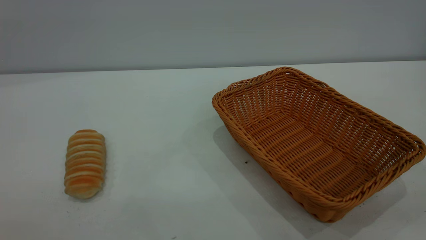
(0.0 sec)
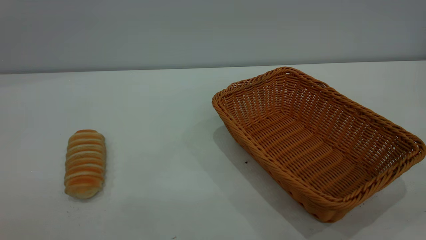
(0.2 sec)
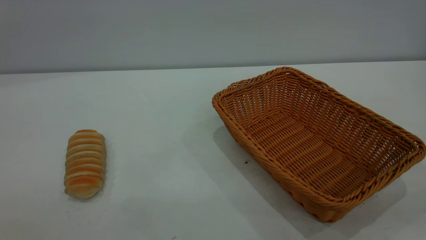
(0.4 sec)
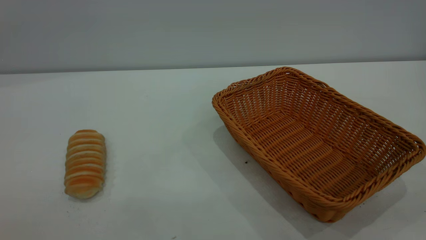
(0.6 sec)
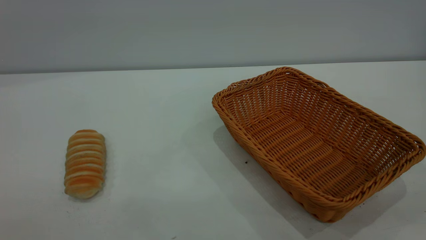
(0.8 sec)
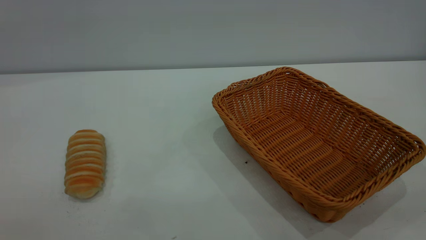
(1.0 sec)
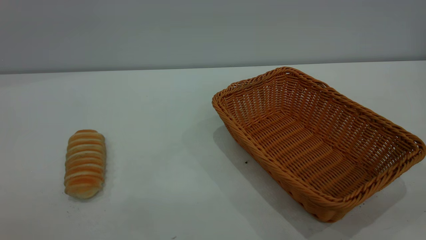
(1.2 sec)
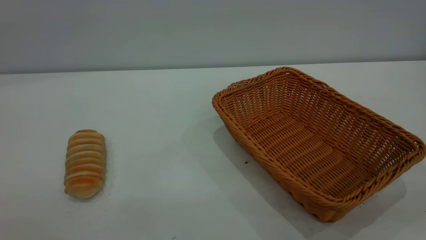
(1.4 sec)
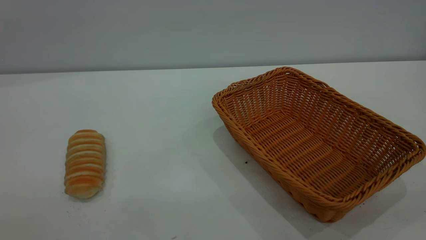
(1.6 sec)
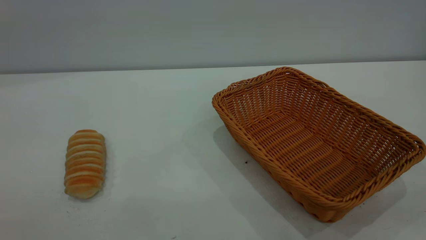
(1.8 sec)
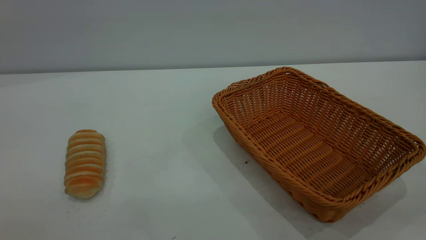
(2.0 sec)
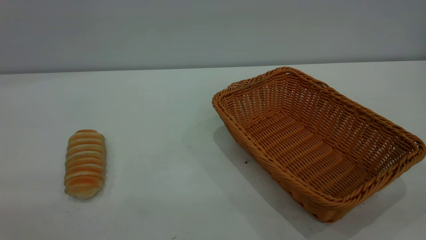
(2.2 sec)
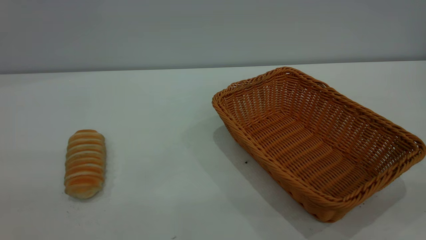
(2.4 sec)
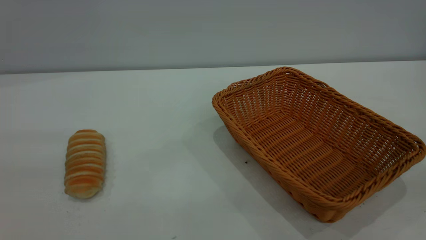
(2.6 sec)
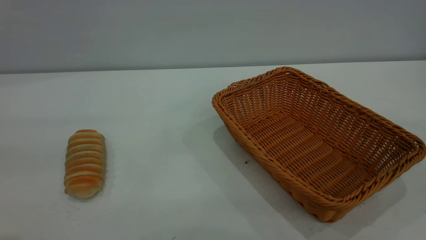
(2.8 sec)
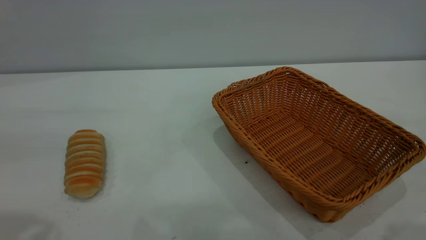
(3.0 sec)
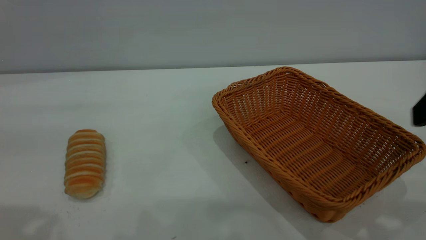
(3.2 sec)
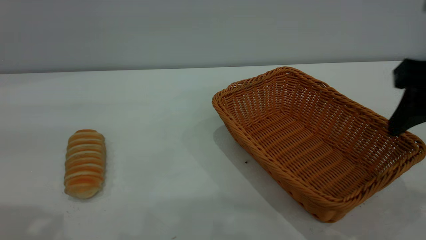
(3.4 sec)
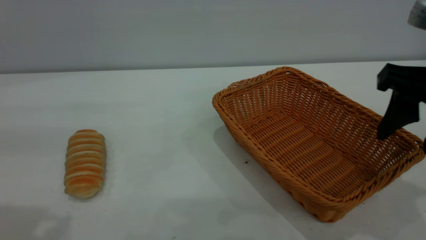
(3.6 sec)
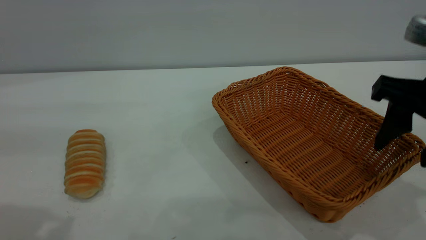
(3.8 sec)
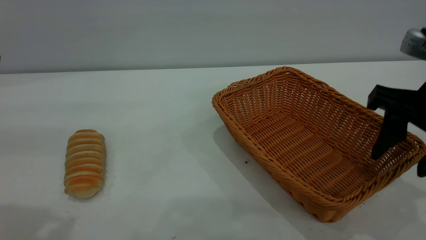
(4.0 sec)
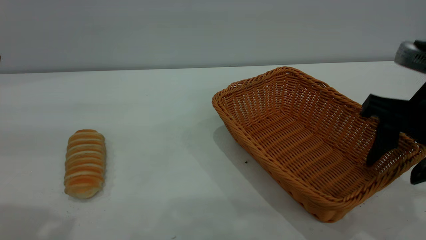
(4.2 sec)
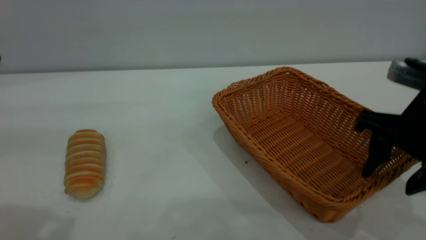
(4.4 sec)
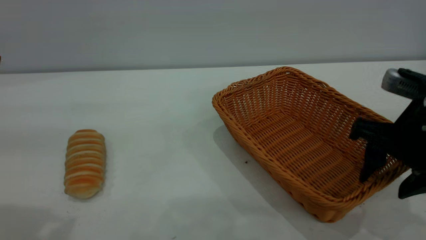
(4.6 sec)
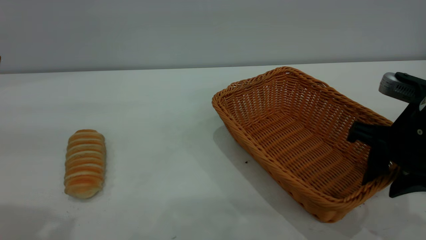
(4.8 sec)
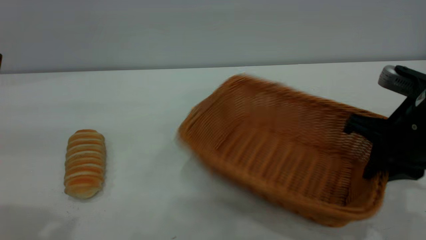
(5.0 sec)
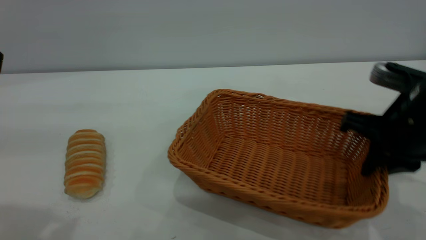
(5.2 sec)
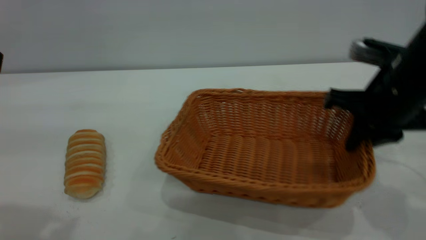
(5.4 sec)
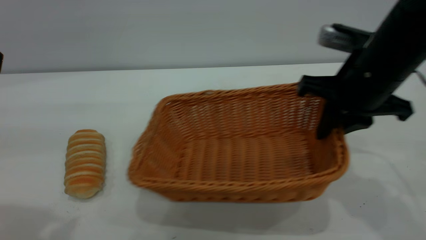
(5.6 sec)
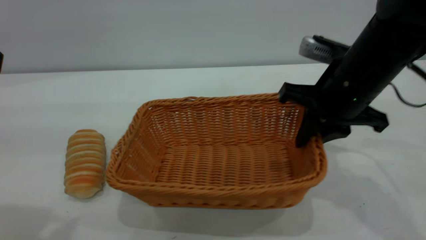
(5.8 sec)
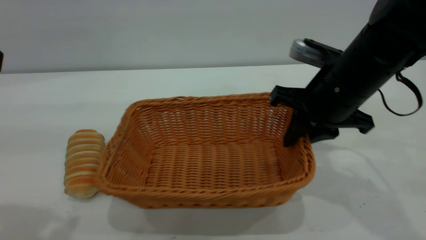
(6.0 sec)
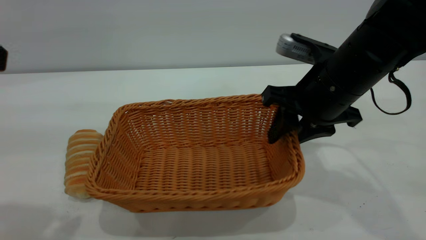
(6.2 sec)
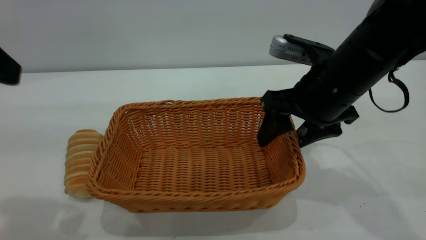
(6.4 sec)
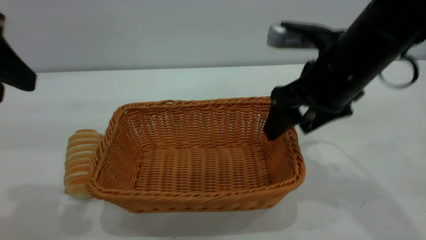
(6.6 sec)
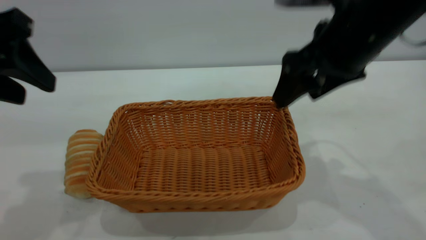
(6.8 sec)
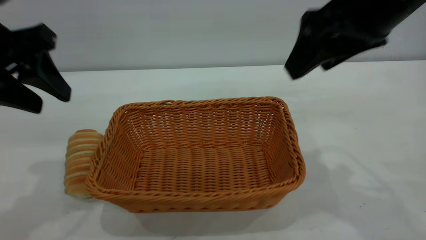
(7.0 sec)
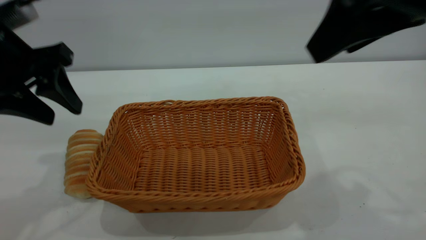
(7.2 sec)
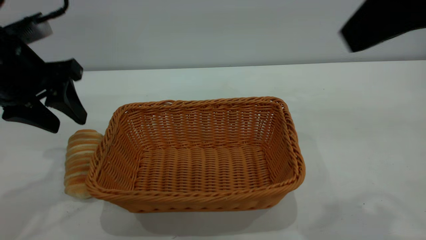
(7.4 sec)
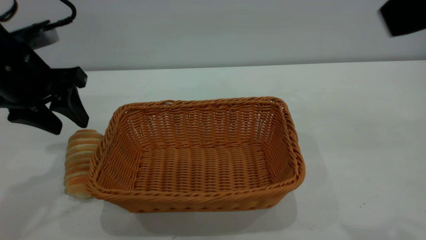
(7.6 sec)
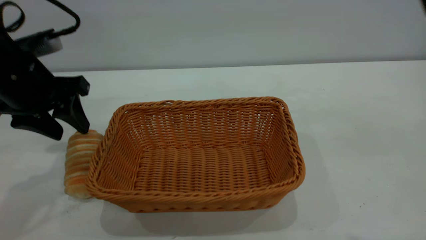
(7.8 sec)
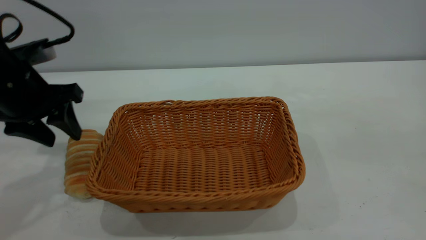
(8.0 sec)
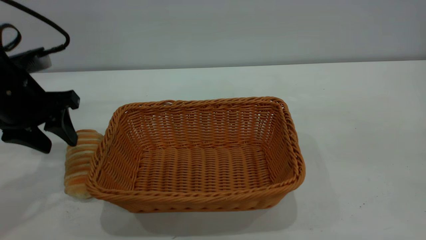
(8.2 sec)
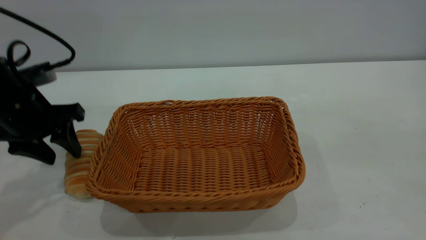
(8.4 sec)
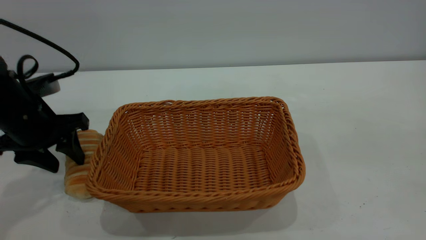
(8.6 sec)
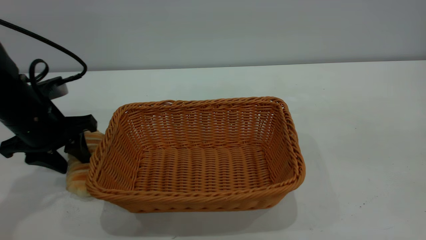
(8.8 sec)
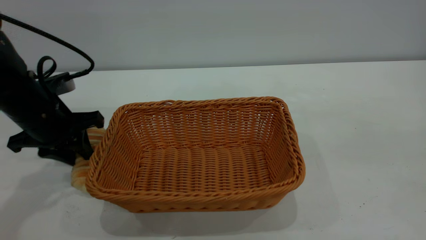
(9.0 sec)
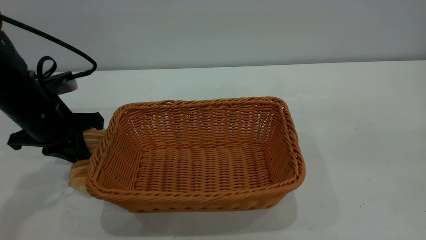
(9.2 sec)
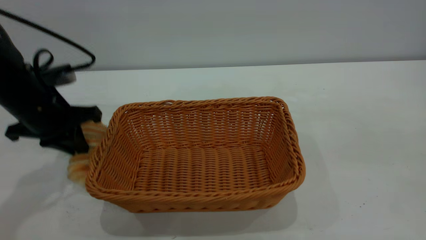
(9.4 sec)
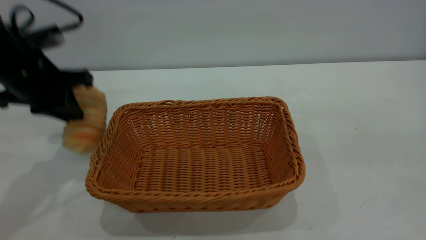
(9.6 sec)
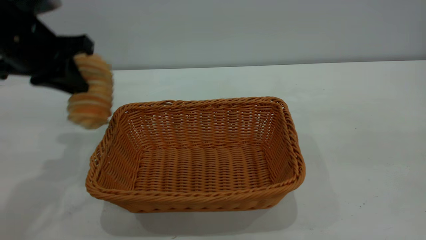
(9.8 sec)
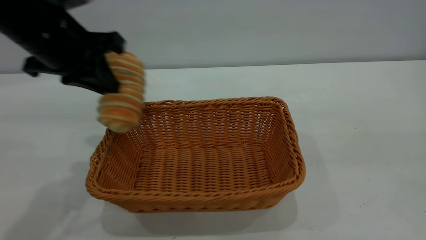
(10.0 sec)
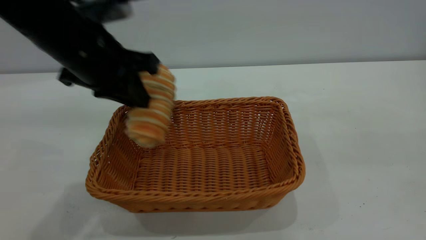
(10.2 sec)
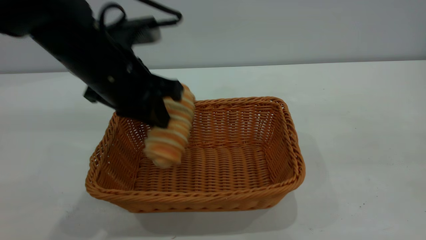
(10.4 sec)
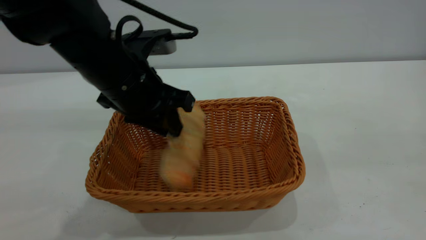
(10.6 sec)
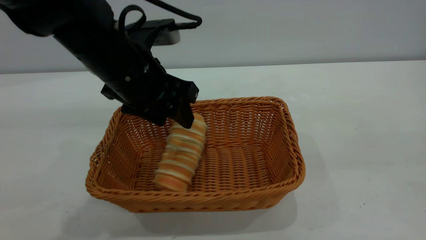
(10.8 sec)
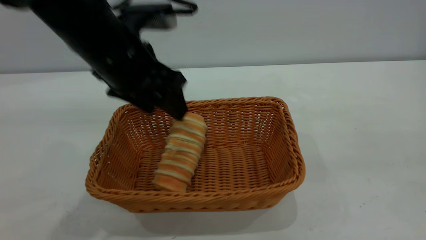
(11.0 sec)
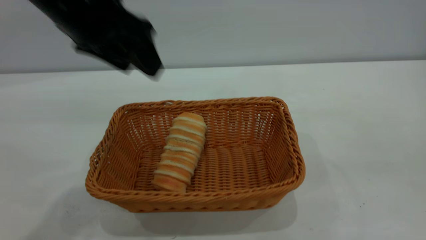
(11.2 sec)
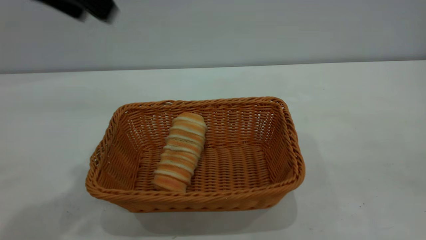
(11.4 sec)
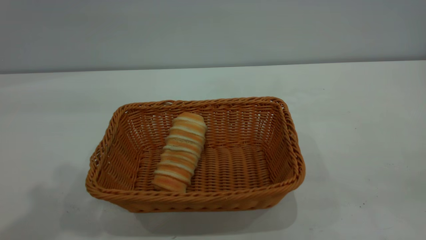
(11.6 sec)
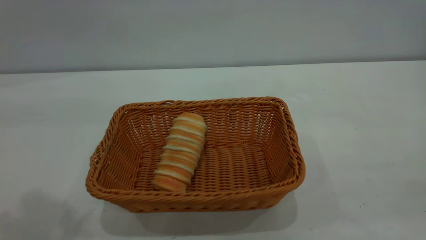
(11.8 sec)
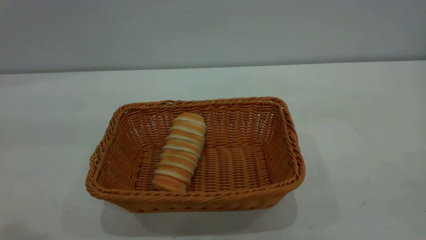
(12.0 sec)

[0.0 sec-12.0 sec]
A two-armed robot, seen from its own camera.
Task of the whole recording: One hand grasps the yellow basket and places it in the middle of the table, while the other hand picks up the long bread and puts it into the yellow basket.
Step, 0.0 sec to 6.8 sec: Move the basket to the center of view.
Step, 9.8 sec to 11.0 sec: place the bread into the basket.
0.0 sec to 1.6 sec: The two grippers keep their place.
3.0 sec to 4.4 sec: The right gripper moves downward and forward, some 15 cm.
4.4 sec to 6.0 sec: The right gripper shifts approximately 10 cm forward and to the left, and closes up.
6.0 sec to 7.6 sec: The right gripper goes about 25 cm upward and backward, and opens. Meanwhile the left gripper goes roughly 20 cm forward and downward.
7.6 sec to 9.0 sec: The left gripper moves downward, roughly 10 cm, and closes up.
9.0 sec to 10.4 sec: The left gripper goes about 15 cm to the right and upward.
10.4 sec to 12.0 sec: The right gripper heads backward and to the right, covering approximately 15 cm; the left gripper travels upward, backward and to the left by some 30 cm, and opens up.

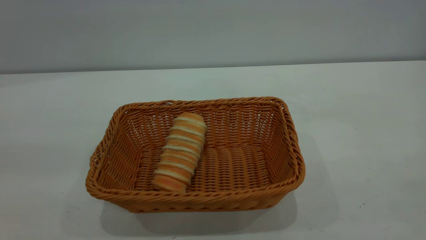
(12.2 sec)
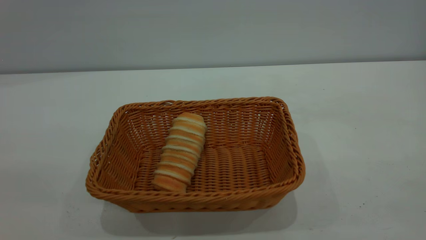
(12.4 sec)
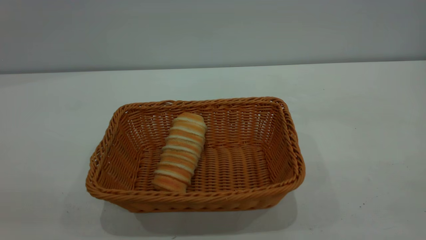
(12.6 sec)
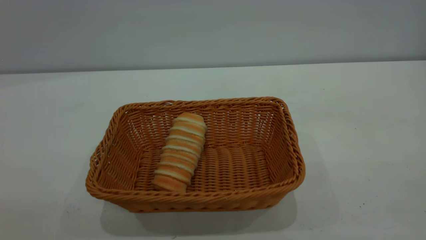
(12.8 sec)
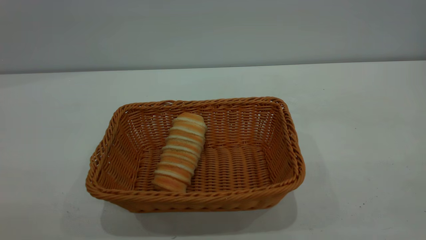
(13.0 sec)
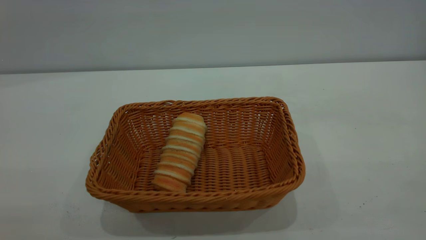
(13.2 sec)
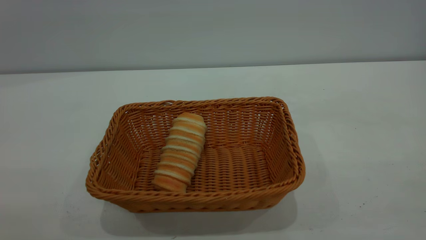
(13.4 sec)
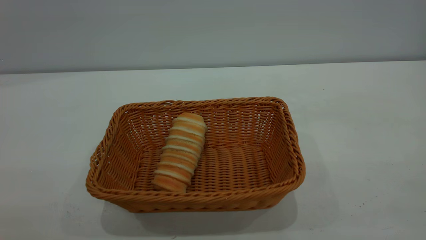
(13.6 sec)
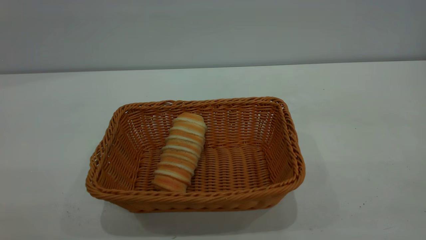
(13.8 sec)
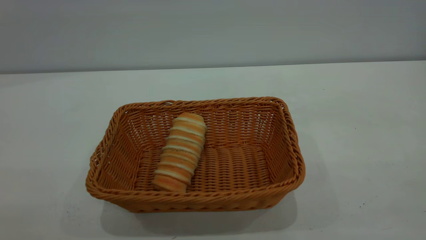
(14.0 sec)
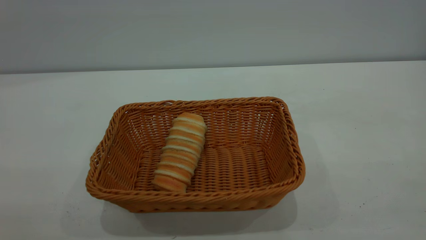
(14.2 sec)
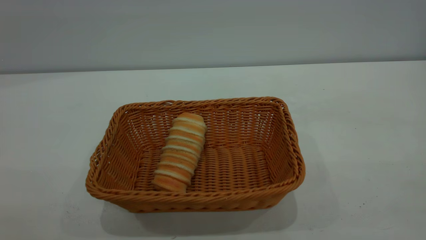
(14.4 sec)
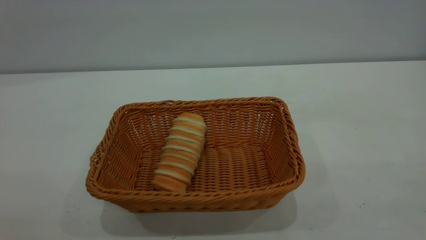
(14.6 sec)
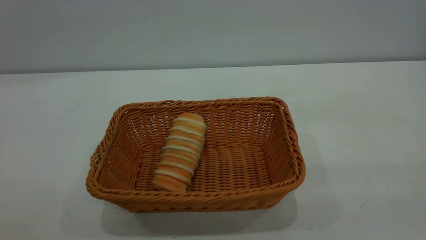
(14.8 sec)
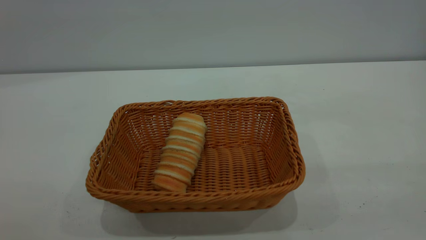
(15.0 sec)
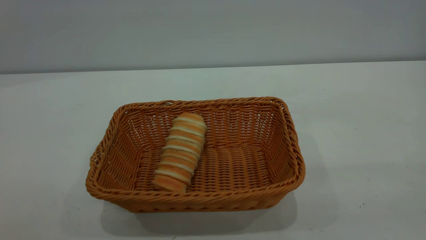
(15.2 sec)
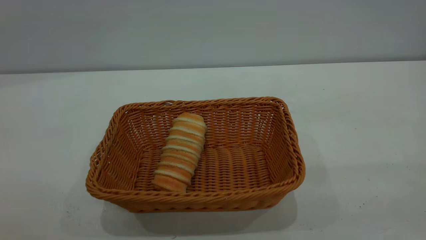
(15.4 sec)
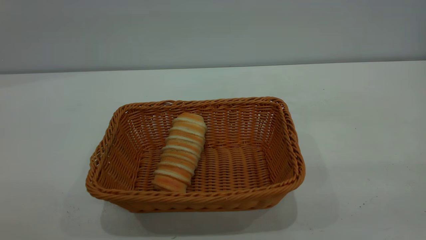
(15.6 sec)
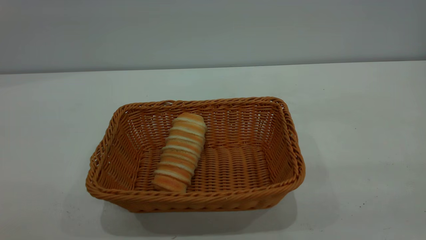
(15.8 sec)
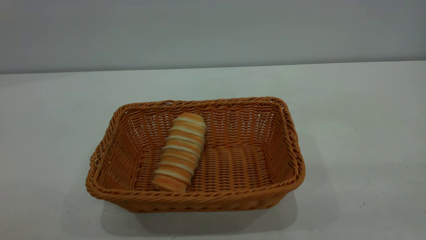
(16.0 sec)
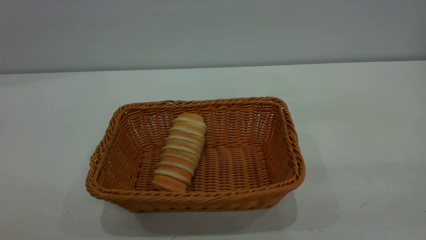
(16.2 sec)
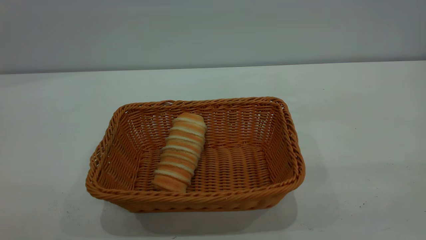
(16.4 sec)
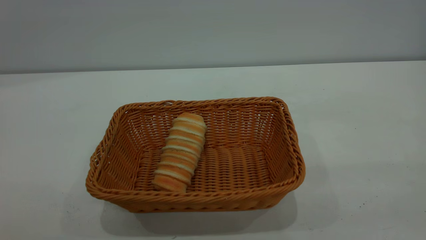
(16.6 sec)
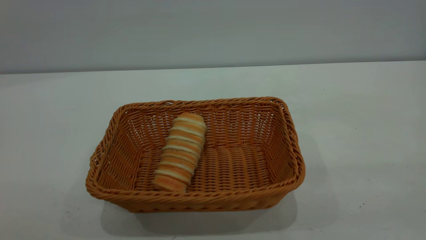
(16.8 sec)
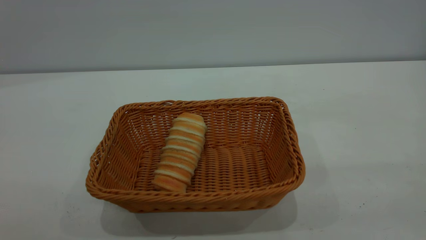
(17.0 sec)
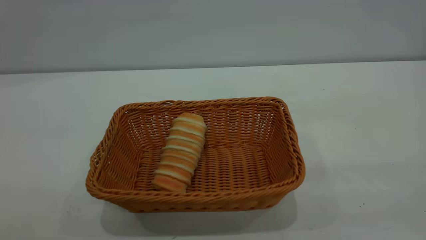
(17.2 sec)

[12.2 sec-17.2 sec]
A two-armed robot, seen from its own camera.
Task of the whole recording: One hand grasps the yellow basket and places it in the middle of the table, while the other hand picks up the long bread and puts it into the yellow basket.
15.6 sec to 17.2 sec: Both grippers stay put.
